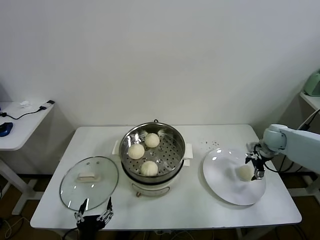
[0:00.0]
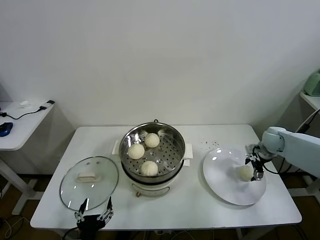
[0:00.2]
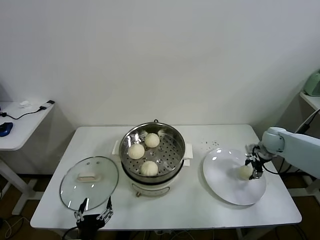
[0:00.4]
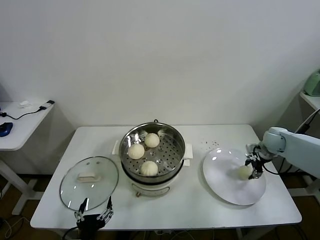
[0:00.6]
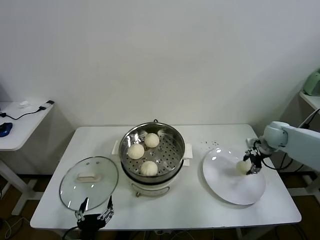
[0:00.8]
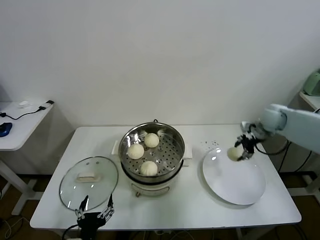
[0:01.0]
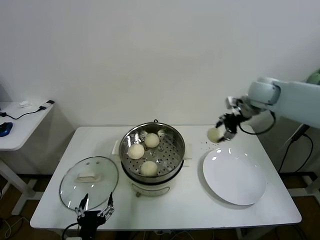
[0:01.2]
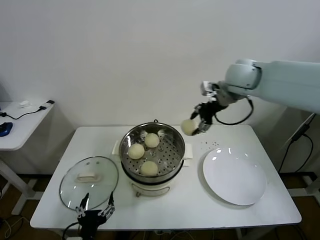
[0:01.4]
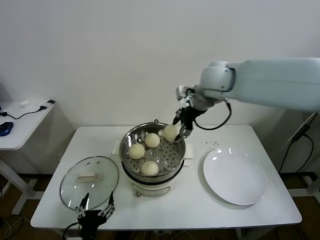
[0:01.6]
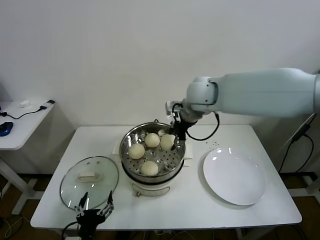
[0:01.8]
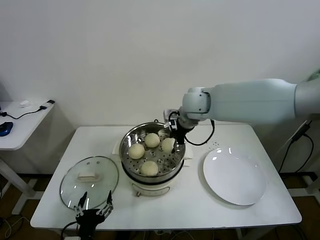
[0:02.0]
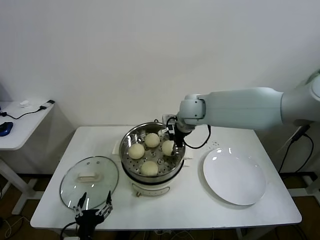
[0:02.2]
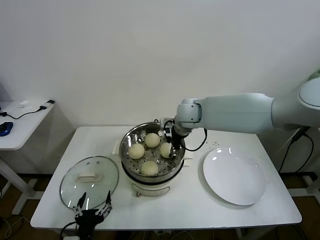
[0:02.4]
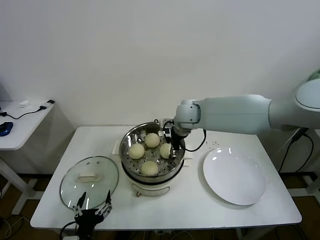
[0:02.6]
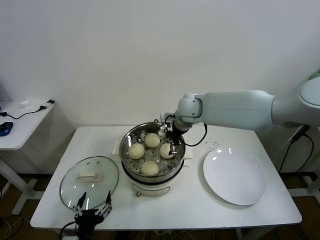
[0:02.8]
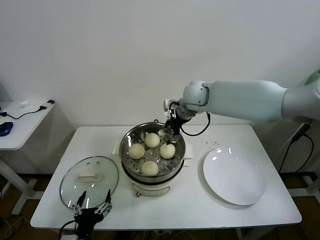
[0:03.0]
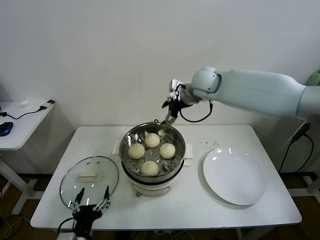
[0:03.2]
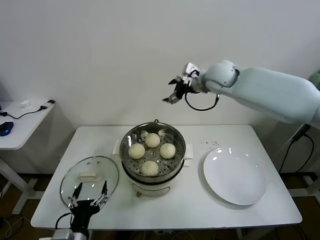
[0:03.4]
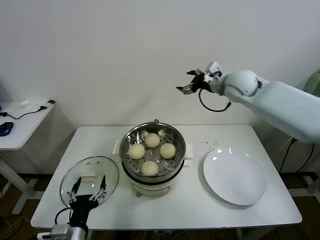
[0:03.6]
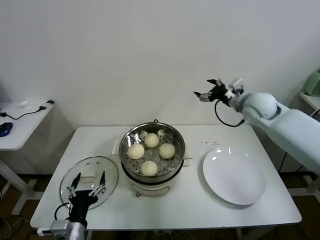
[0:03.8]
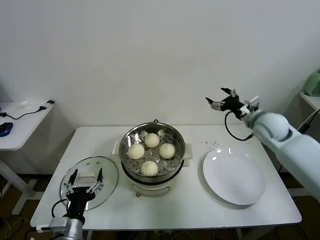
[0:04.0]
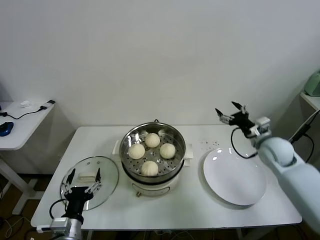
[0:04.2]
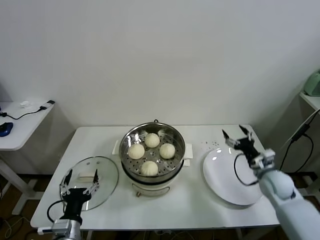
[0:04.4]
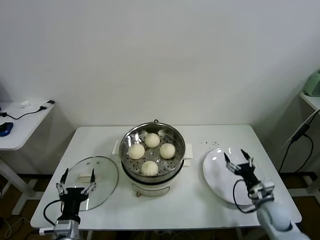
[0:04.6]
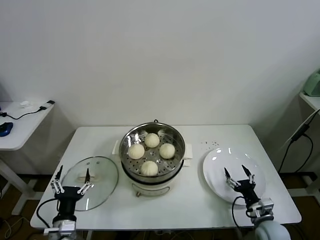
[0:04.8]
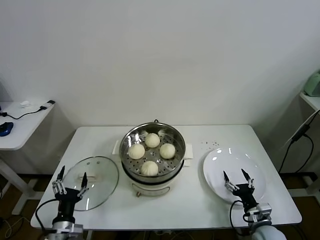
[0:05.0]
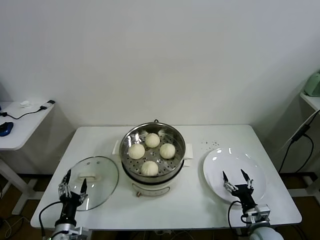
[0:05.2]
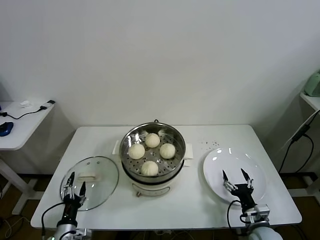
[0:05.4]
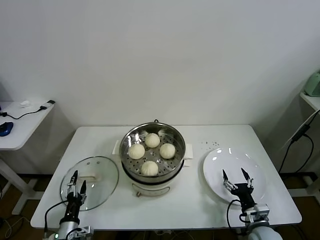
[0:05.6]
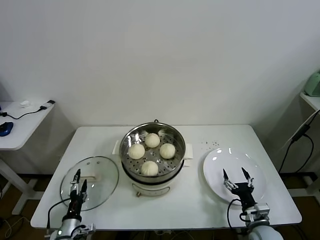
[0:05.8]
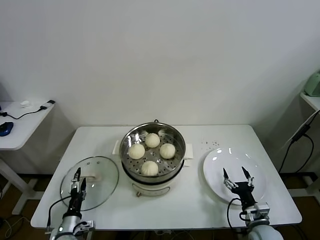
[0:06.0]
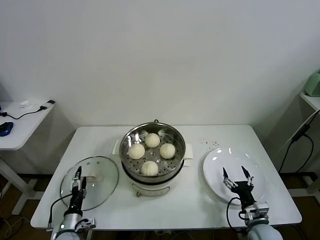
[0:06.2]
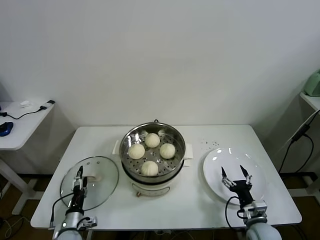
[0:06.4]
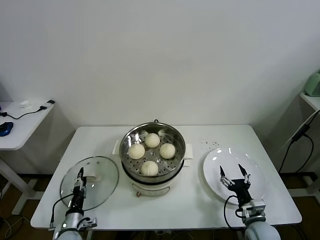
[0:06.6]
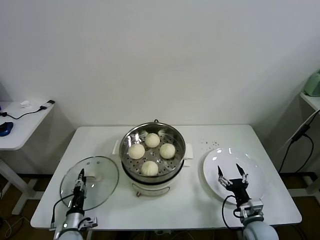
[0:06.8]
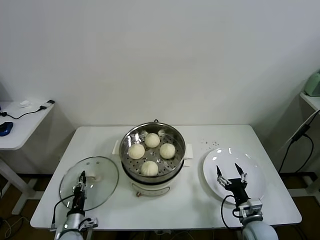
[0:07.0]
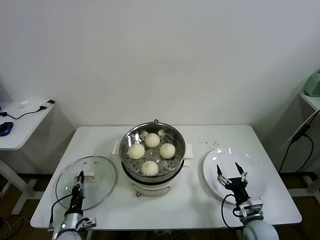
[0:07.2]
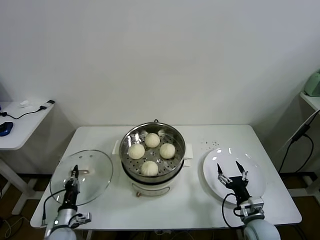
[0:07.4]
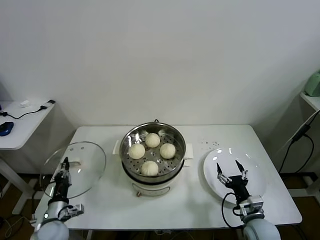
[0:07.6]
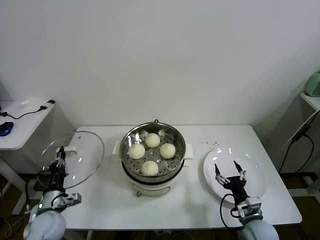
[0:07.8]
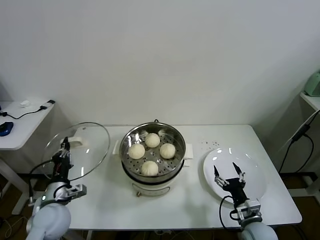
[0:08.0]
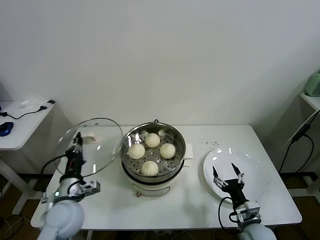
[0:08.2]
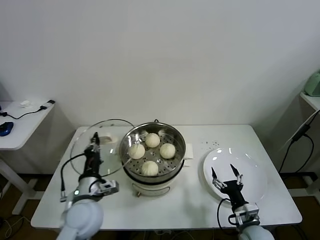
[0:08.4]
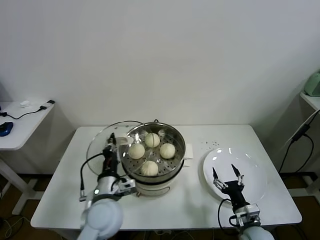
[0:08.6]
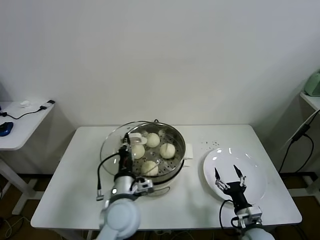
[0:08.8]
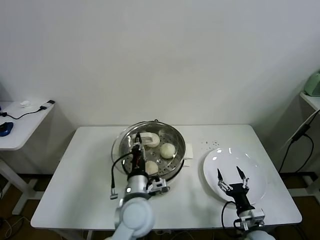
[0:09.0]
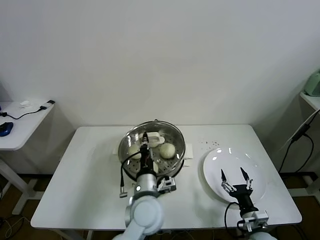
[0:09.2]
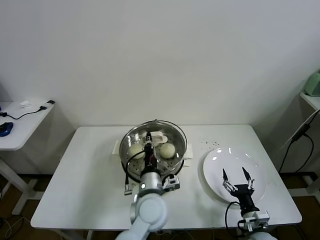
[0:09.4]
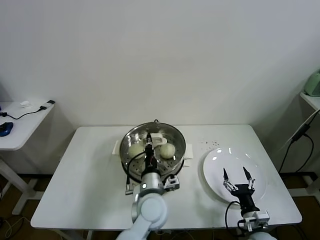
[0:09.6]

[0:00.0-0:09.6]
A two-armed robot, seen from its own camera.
Task of the whole recording: take steamed baozi put them in steamer.
Step, 0:00.6 to 0:02.8: Place the baozi on the steamer with right gripper.
Step, 0:03.0 to 0:07.2: Grasp the pot lid with left gripper.
0:00.0 to 0:01.6: The right gripper moves to the left and upward, approximately 40 cm, and closes up.
0:01.6 to 0:03.2: The right gripper travels forward by roughly 5 cm, moves roughly 15 cm downward and comes back, and opens up.
0:03.2 to 0:04.8: The right gripper moves downward, backward and to the right, about 60 cm. The left gripper is displaced to the left by about 5 cm.
0:04.8 to 0:06.4: The left gripper is displaced downward and forward by approximately 15 cm.
0:06.4 to 0:08.0: The left gripper moves upward, some 15 cm, and closes.
0:08.0 to 0:09.6: The left gripper heads to the right, covering roughly 30 cm.

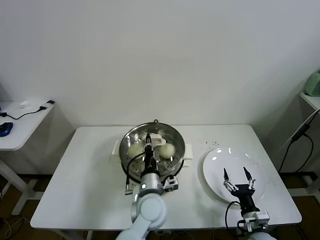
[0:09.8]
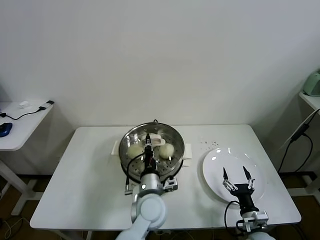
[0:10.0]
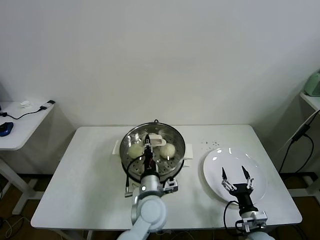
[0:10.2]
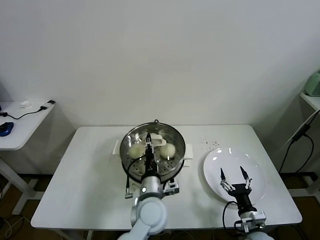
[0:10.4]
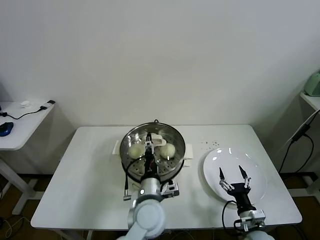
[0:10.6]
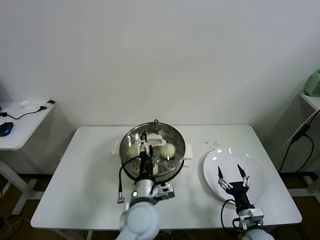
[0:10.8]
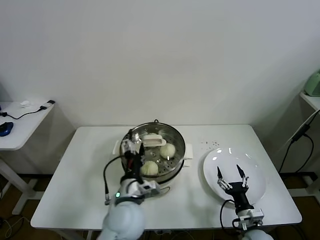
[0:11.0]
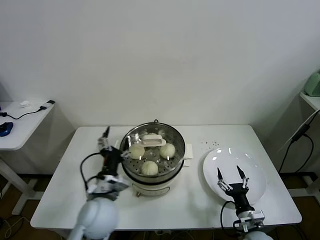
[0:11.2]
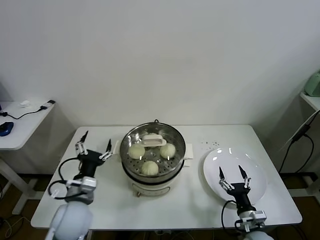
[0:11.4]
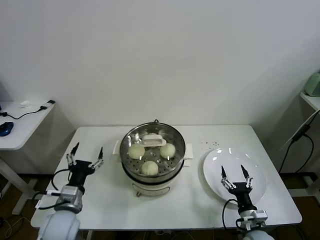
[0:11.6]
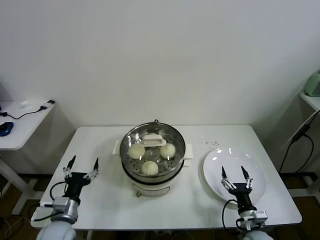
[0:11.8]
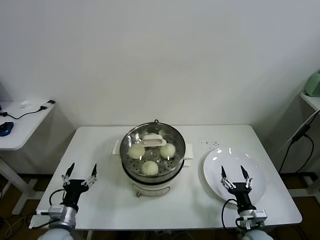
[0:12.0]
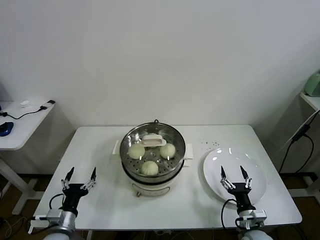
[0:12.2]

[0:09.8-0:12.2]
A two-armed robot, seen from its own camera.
Task of the whole recording: take steamed baozi put them in steamer.
0:09.8 to 0:11.0: The left gripper ends up roughly 5 cm from where it was, and opens.
0:11.0 to 0:12.2: The left gripper is displaced to the left and downward by some 30 cm.

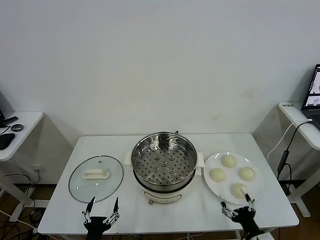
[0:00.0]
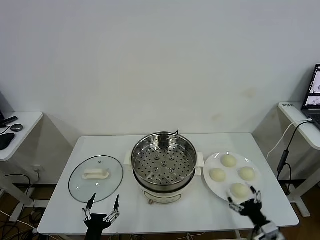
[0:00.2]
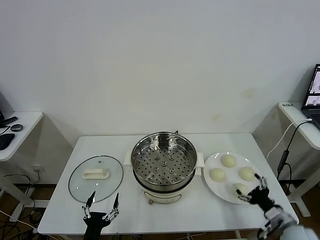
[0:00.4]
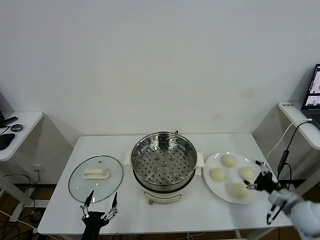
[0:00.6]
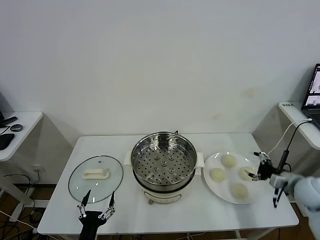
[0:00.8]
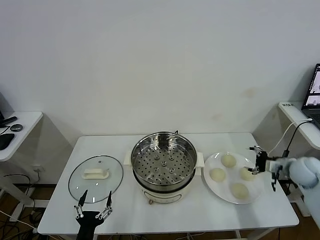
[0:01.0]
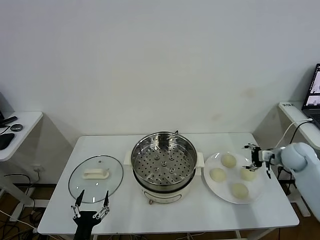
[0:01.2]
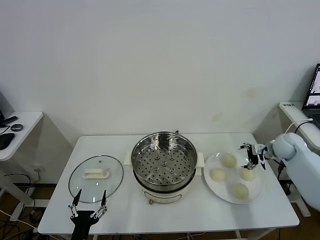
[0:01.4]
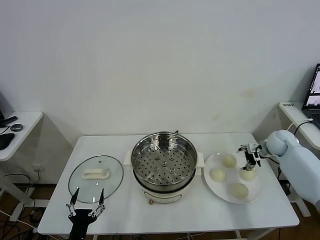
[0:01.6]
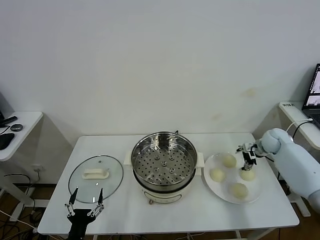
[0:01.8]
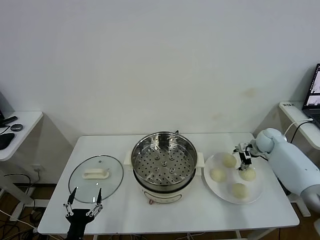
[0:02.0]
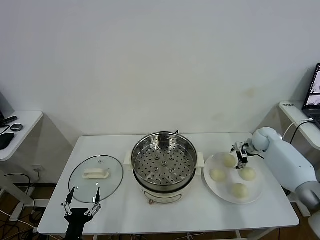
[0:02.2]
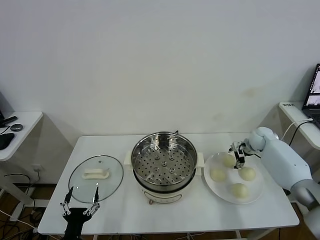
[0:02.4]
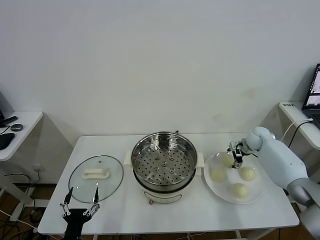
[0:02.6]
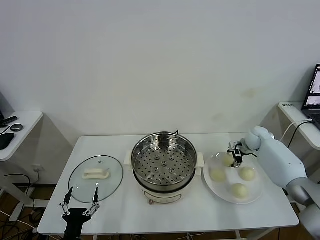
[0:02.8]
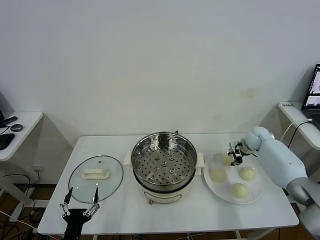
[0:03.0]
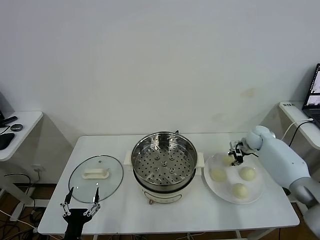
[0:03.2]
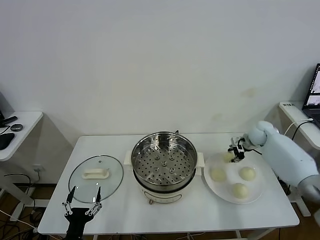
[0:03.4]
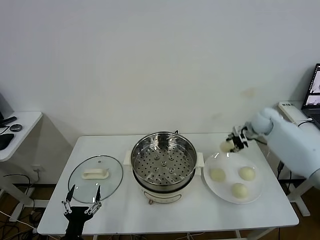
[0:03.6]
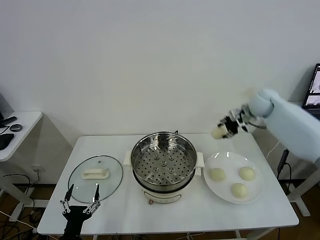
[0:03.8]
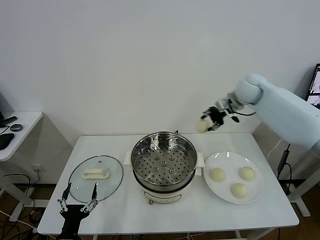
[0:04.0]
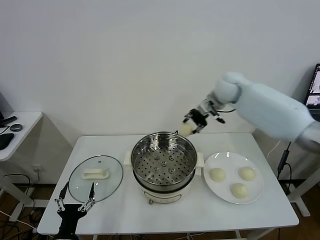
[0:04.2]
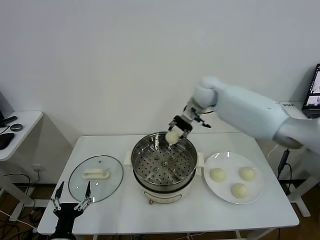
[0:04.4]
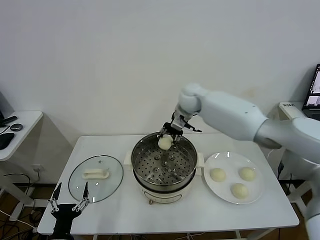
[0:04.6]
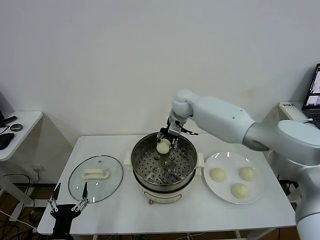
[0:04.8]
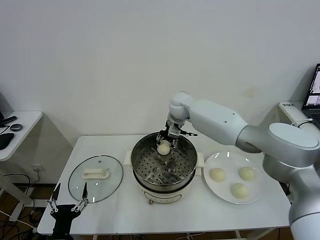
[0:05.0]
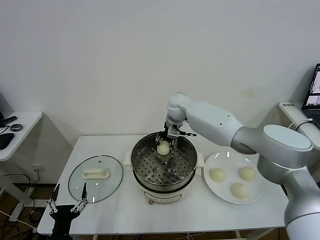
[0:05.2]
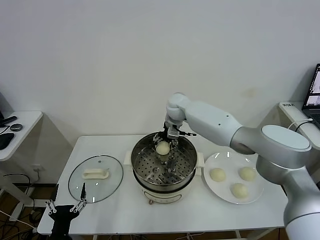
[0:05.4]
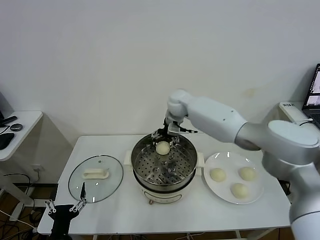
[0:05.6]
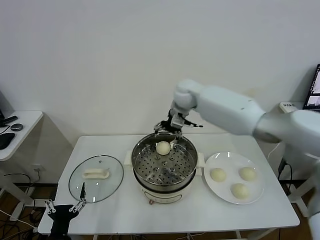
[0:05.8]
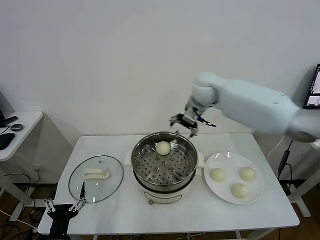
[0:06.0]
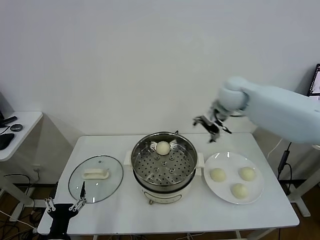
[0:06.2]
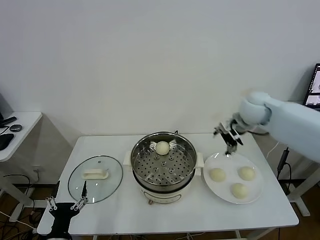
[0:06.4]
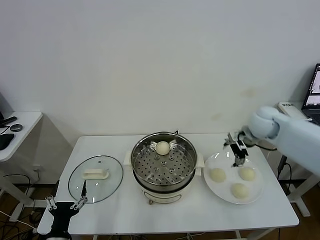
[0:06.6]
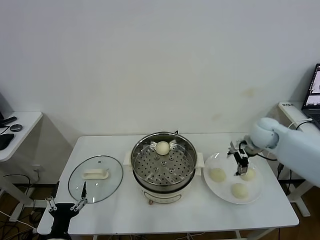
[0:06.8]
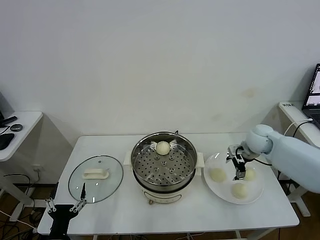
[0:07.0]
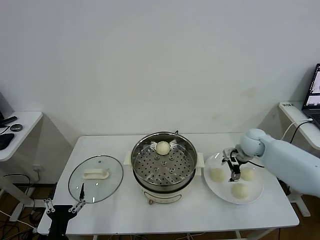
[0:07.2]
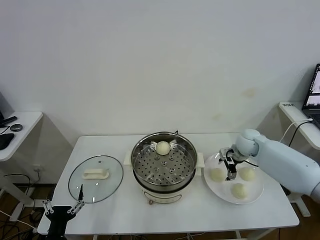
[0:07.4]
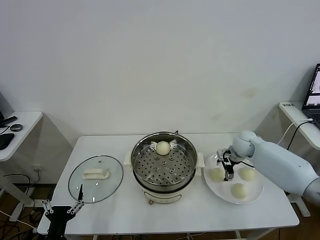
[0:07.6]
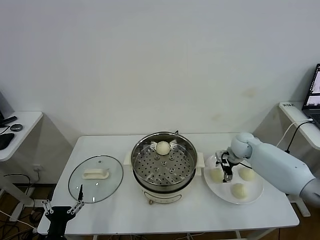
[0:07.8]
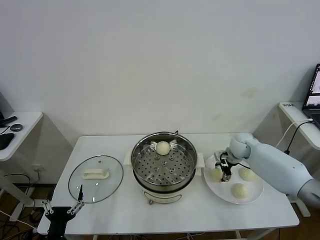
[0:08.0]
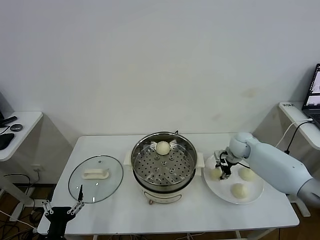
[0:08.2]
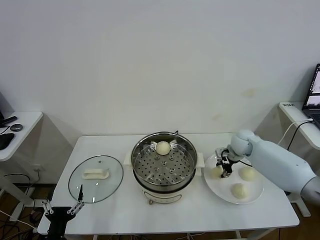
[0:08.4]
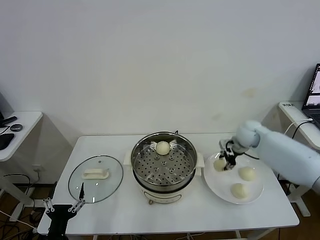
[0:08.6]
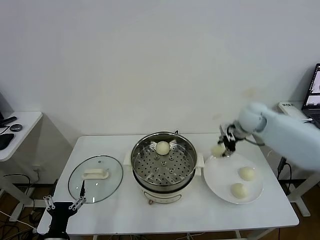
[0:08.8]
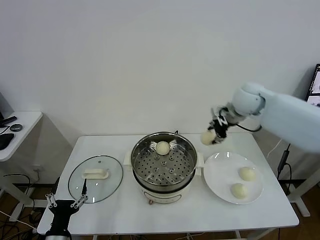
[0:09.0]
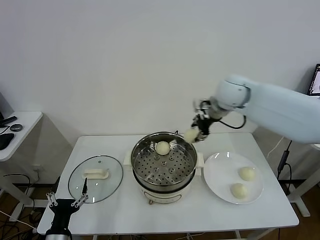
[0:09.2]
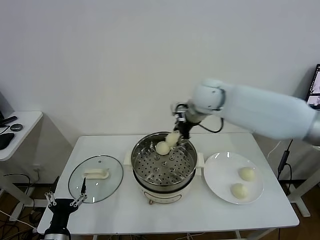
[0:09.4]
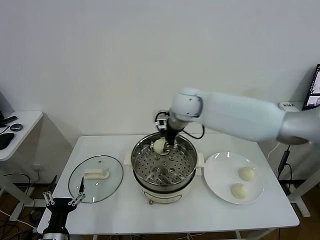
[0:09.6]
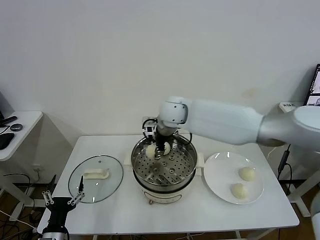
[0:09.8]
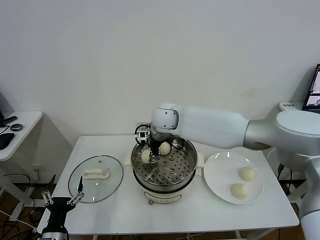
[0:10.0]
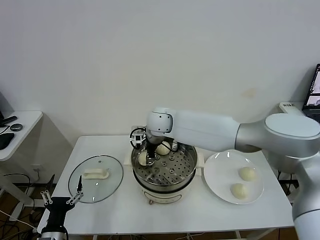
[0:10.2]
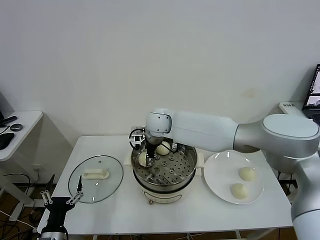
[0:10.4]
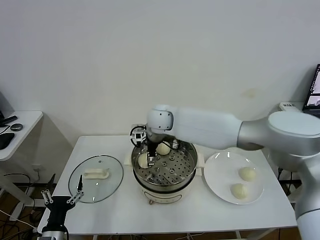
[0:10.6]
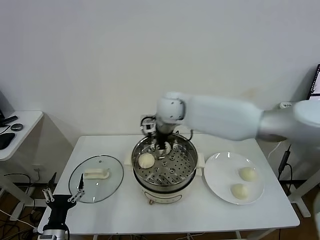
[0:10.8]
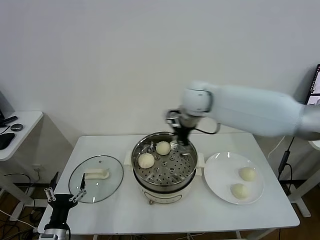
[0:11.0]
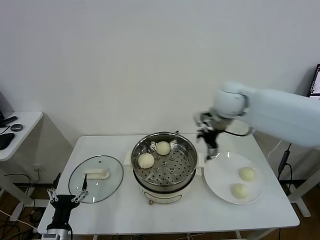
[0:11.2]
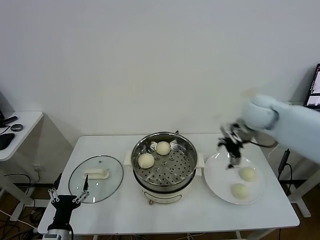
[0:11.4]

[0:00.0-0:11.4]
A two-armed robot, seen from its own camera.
Task of the whole recording: take steamed baozi put them in steamer.
Step, 0:00.0 to 0:02.8: Grasp the baozi in the plate with right gripper.
Step, 0:03.0 to 0:05.6: Place the baozi on the steamer with right gripper.
Step, 0:05.8 to 0:08.2: Grasp the baozi in the plate with right gripper.
Step, 0:08.4 to 0:10.6: Place the baozi on the steamer with right gripper.
0:01.4 to 0:02.8: The right gripper moves forward and to the left, approximately 10 cm, and closes its fingers.
0:02.8 to 0:04.2: The right gripper moves upward and to the left, roughly 30 cm.
0:04.2 to 0:05.6: The right gripper goes approximately 15 cm to the left and downward, and opens.
0:05.6 to 0:07.2: The right gripper moves to the right and downward, approximately 30 cm.
0:07.2 to 0:08.6: The right gripper closes its fingers.
0:08.6 to 0:10.0: The right gripper moves to the left, about 30 cm.
0:10.0 to 0:11.4: The right gripper is displaced to the right by approximately 30 cm, and opens up.
